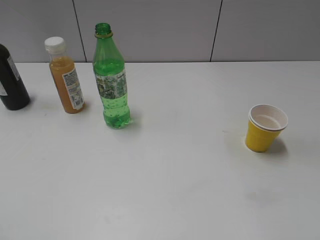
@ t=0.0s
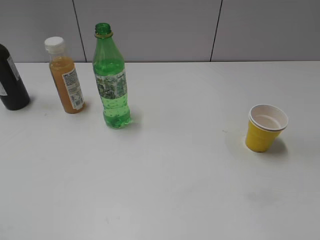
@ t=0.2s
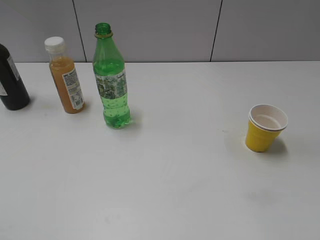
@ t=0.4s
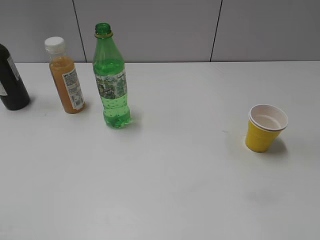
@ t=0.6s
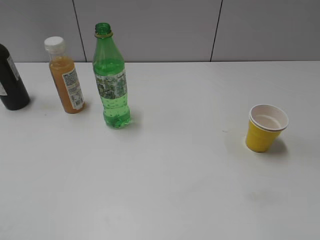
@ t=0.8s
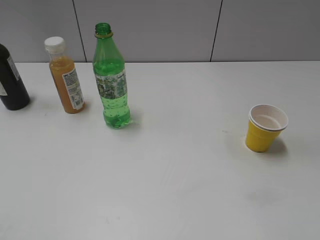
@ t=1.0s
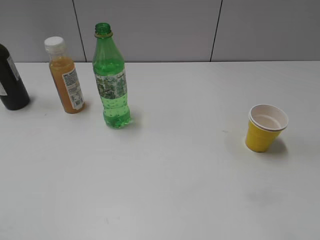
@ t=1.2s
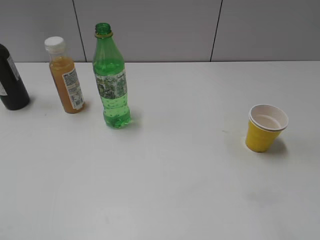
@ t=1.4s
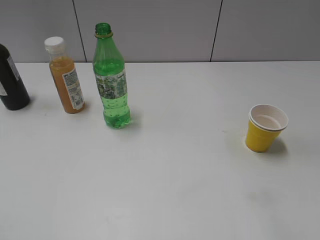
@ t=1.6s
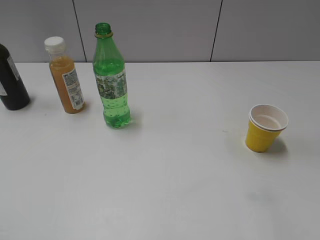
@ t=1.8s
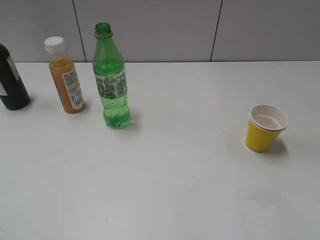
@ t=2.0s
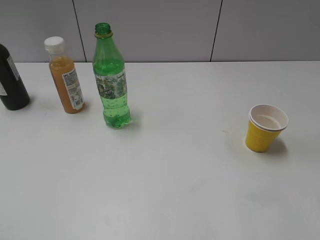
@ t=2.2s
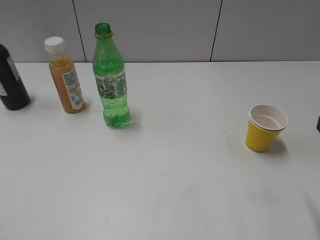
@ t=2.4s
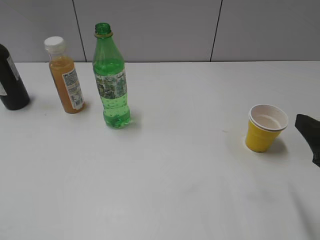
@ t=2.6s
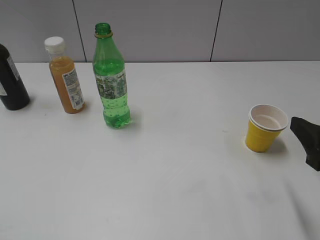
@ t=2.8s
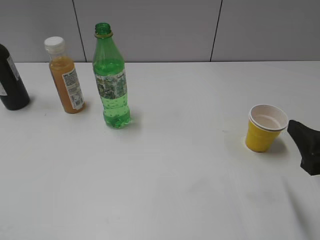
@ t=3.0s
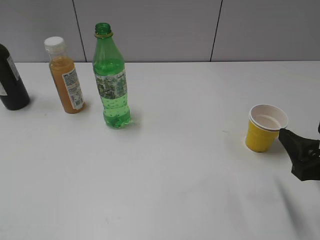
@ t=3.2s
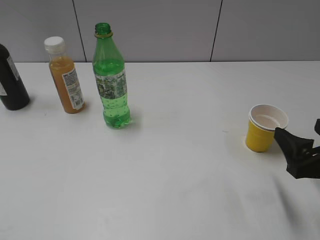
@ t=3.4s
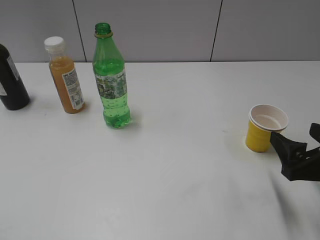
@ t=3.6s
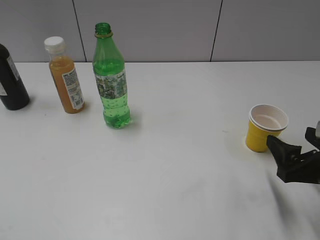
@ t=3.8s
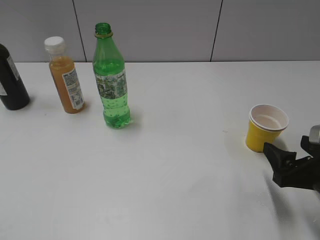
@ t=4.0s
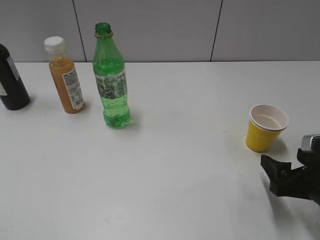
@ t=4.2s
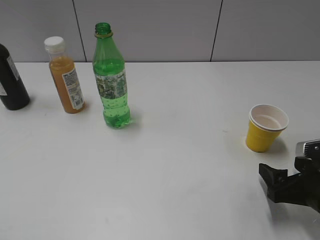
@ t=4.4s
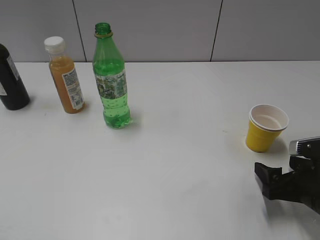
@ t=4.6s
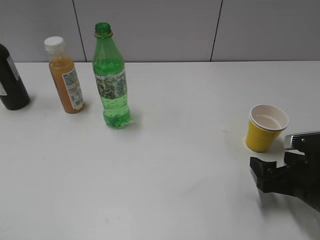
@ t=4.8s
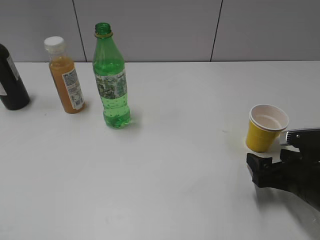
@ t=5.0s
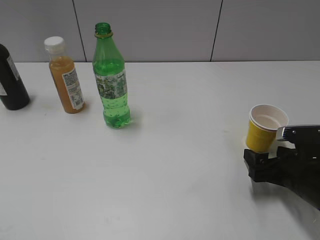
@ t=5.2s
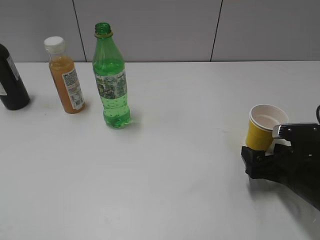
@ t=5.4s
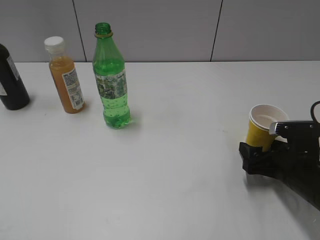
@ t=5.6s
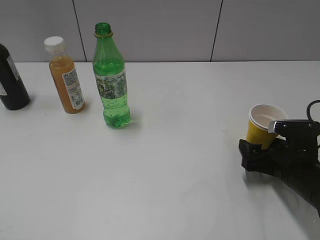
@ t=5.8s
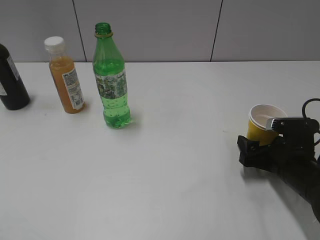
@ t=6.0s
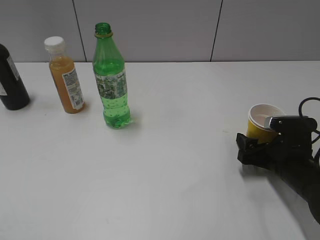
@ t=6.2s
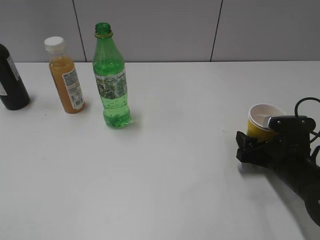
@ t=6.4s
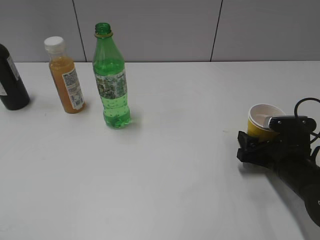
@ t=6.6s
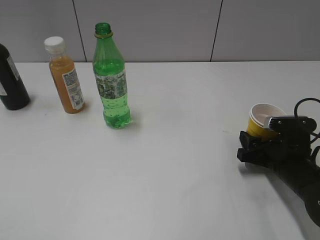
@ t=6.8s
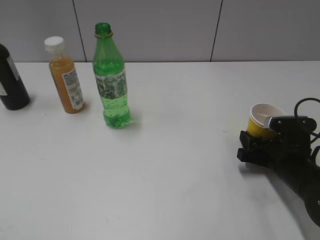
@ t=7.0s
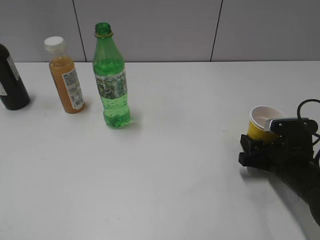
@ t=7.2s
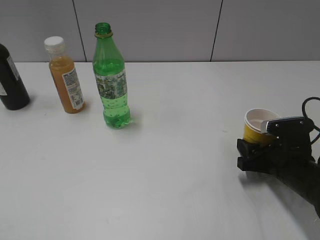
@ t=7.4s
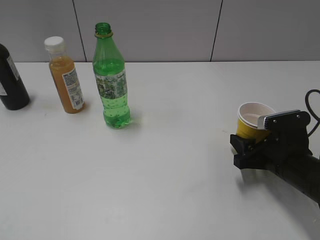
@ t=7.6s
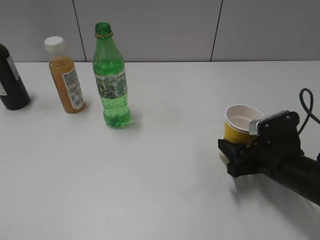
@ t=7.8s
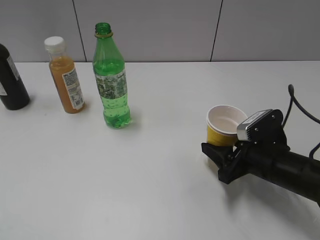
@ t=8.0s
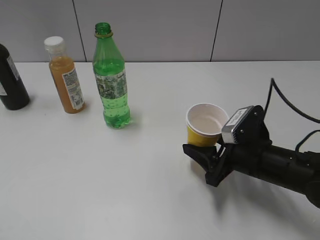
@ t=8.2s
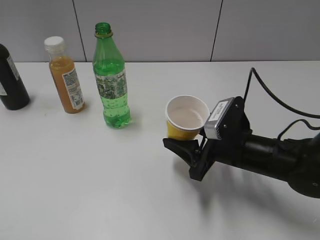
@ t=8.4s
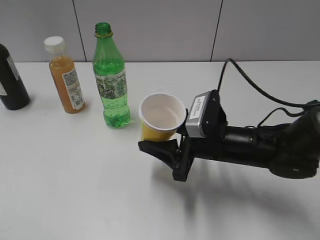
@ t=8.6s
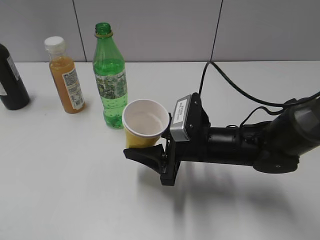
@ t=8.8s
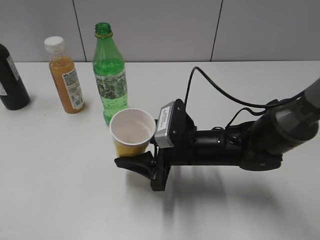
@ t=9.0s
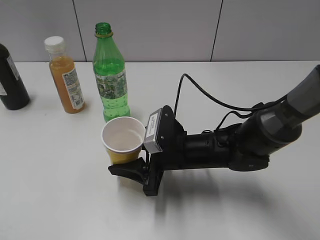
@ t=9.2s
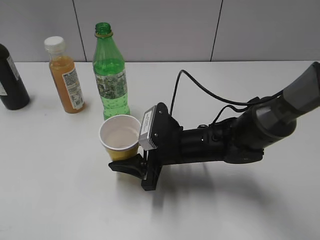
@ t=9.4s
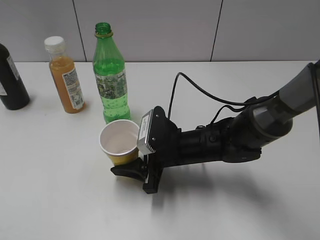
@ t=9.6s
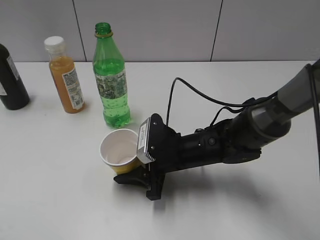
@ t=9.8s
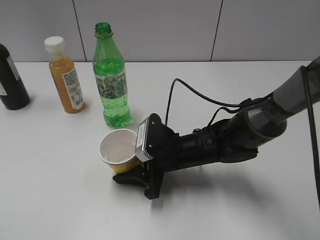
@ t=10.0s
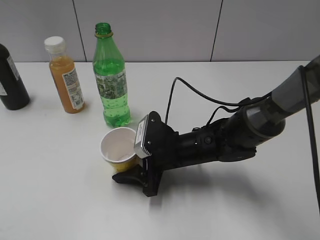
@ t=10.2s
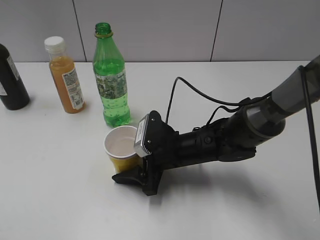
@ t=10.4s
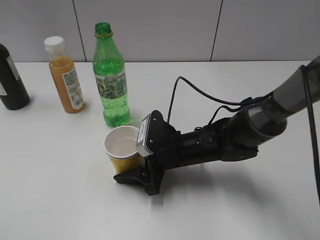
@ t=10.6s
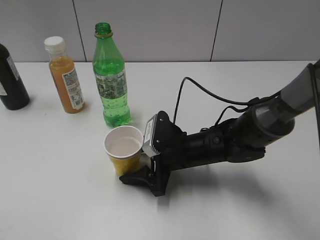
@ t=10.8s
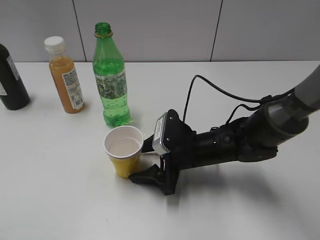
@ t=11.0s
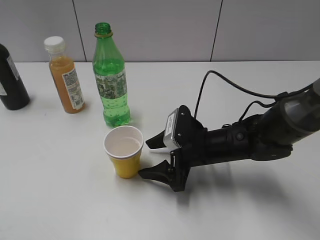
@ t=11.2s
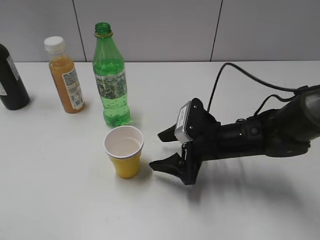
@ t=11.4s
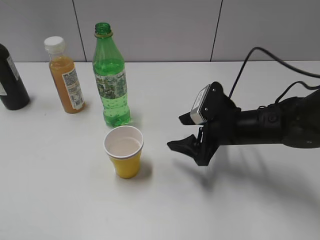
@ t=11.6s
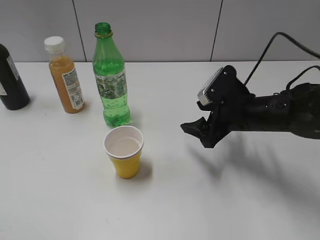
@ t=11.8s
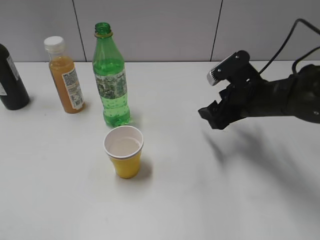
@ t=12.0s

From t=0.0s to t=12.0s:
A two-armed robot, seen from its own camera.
Step, from t=1.0s to t=6.8s: Grasp the yellow paper cup with right gripper.
Step, from t=7.2s to t=11.0s: Place the yellow paper cup on the table with right gripper.
From t=1.6s to t=3.0s: The right gripper travels downward and forward by approximately 15 cm.
From t=3.0s to t=4.4s: The right gripper shifts roughly 10 cm downward.
From t=4.4s to t=6.0s: The right gripper shifts approximately 5 cm forward.
From t=6.0s to t=7.6s: The right gripper closes its fingers.
From t=7.6s to t=9.0s: The right gripper shifts about 15 cm to the left.
From t=9.0s to t=10.4s: The right gripper opens.
From t=10.4s to t=12.0s: The right gripper shifts some 15 cm to the right and upward.

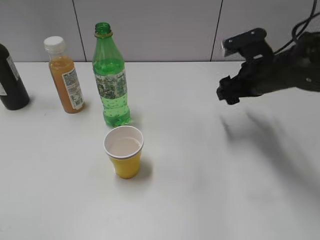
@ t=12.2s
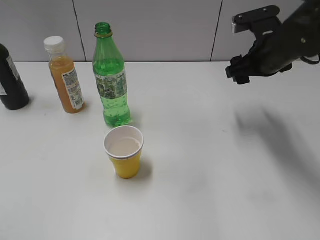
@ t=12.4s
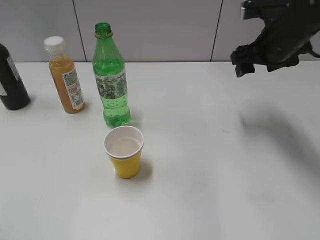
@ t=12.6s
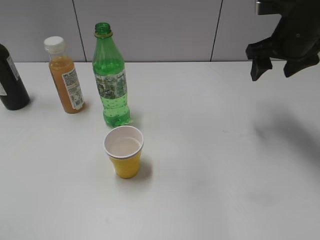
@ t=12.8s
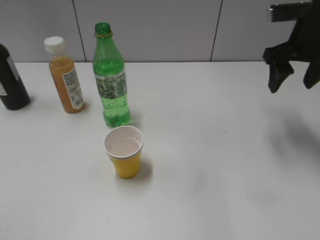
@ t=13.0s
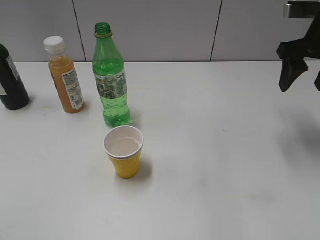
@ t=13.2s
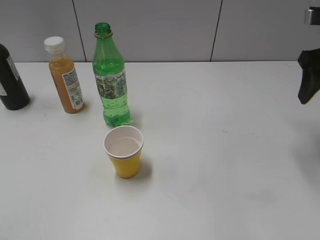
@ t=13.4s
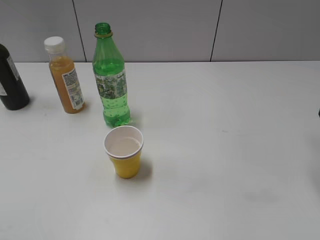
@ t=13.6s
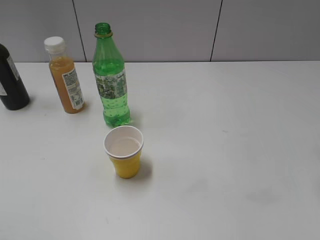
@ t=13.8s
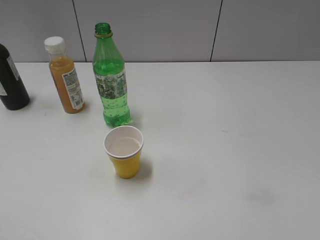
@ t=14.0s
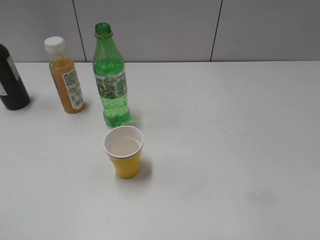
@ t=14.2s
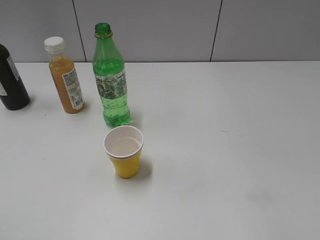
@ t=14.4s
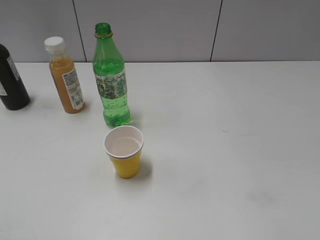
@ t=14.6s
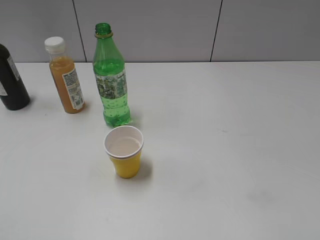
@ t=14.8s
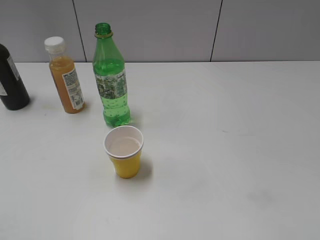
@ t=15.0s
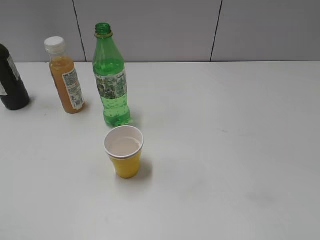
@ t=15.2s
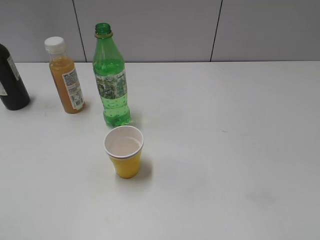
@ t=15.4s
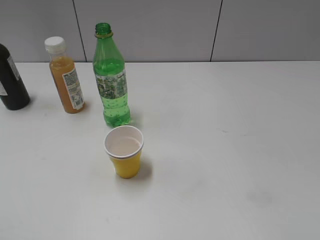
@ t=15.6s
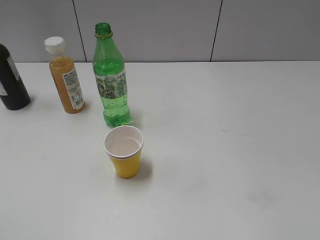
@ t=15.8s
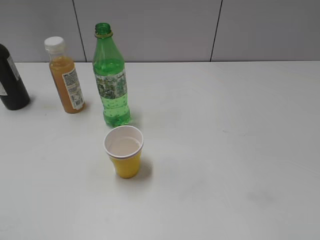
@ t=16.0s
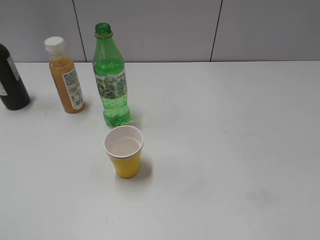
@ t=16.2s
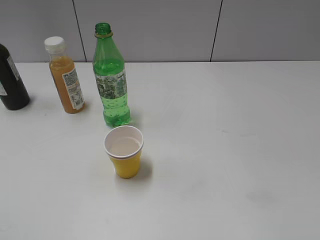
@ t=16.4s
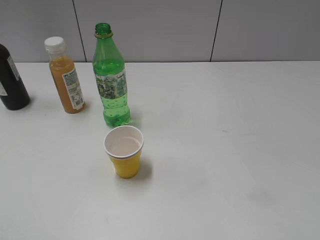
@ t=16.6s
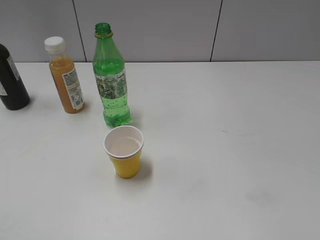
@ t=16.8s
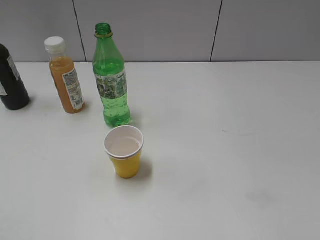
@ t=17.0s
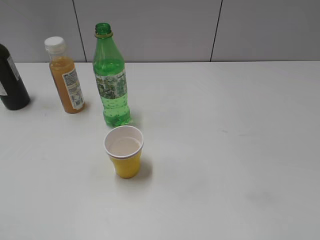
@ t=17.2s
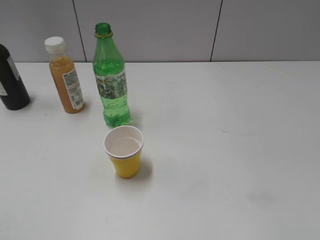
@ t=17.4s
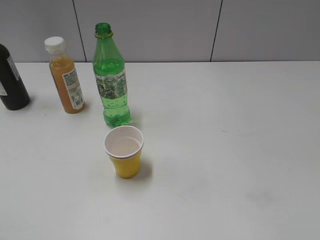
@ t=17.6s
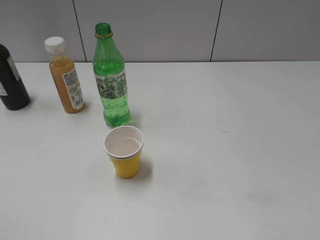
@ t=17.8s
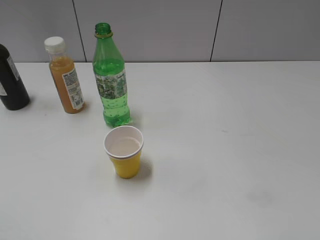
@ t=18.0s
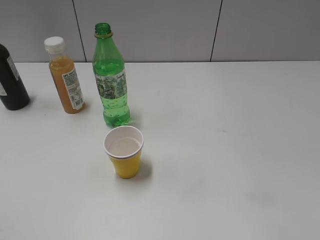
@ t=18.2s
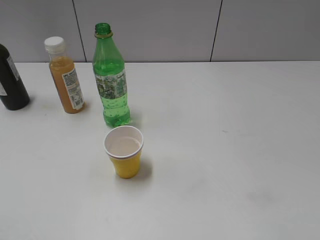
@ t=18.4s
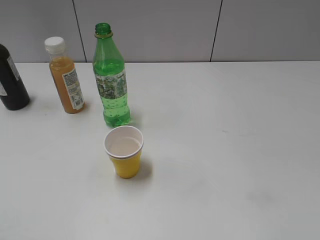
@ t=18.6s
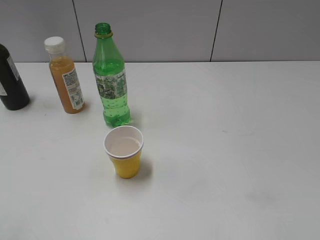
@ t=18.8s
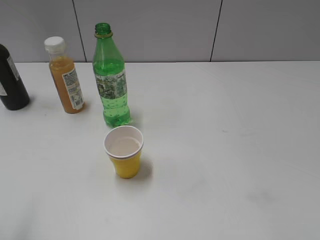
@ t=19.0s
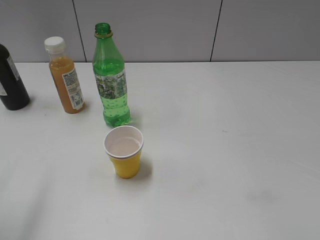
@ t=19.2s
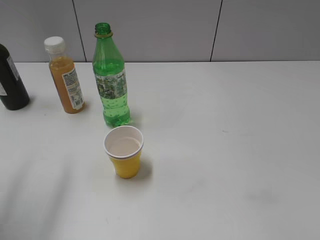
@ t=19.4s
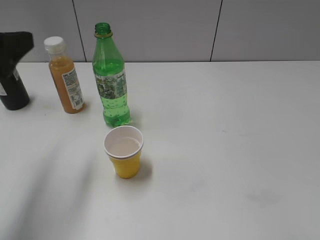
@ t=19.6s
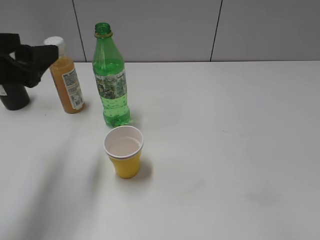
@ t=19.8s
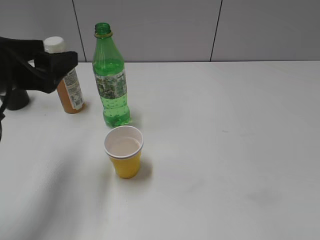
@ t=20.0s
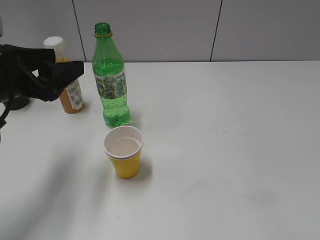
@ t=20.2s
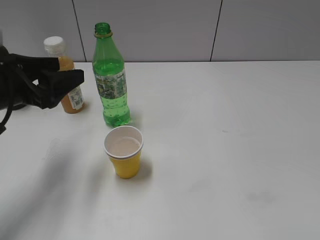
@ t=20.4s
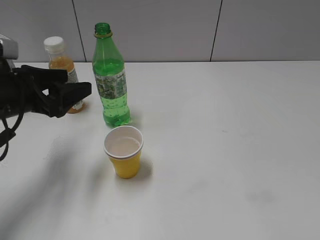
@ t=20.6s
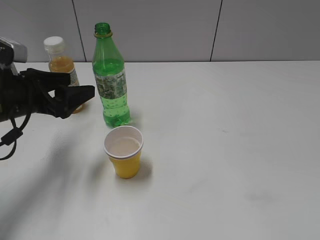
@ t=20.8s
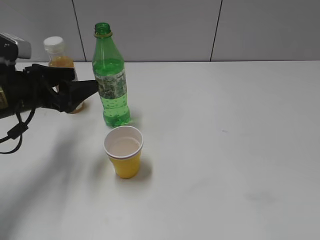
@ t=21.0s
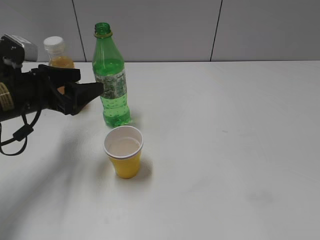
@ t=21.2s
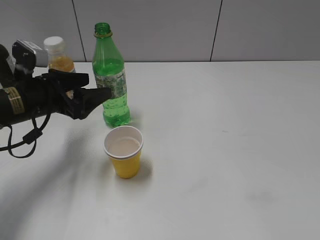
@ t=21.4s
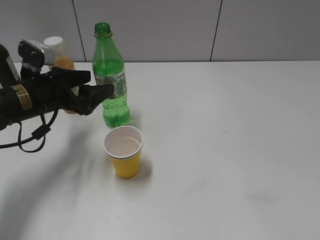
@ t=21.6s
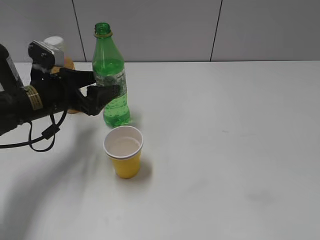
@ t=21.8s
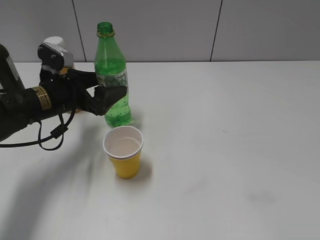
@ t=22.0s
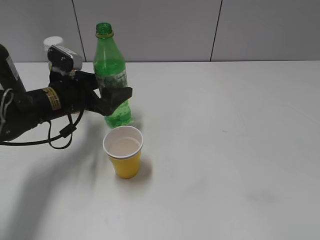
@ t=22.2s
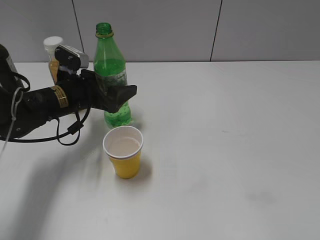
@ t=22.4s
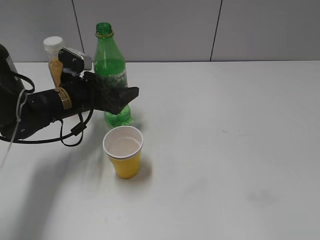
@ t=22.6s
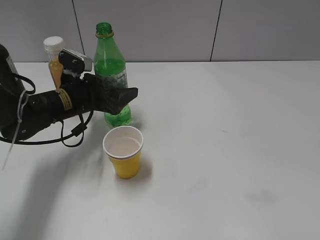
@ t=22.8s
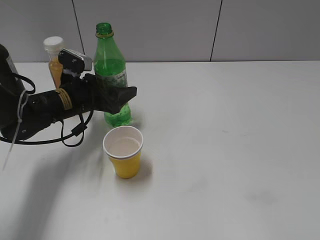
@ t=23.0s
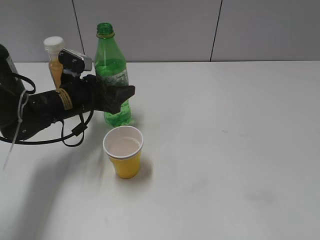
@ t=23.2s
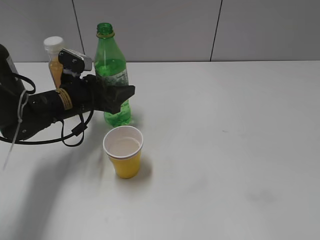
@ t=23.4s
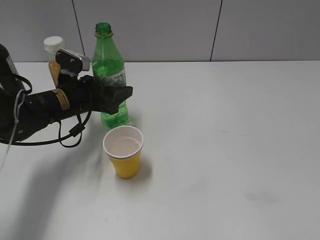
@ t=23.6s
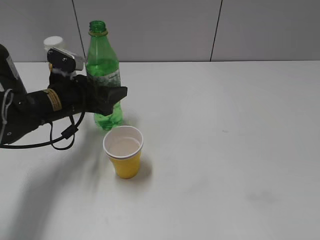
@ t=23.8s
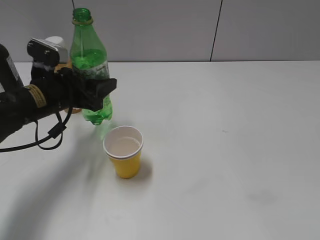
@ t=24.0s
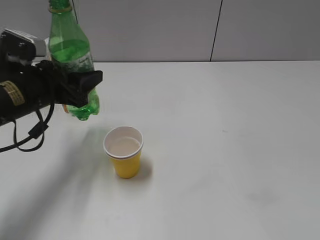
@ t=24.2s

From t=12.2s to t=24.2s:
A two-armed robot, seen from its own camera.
Step, from t=12.2s to t=23.2s: Grasp the bottle with sprite with left gripper.
From t=12.2s to t=13.8s: The right gripper is displaced upward, backward and to the right by roughly 20 cm.
From t=18.2s to t=19.8s: The left gripper shifts about 25 cm forward.
From t=19.8s to t=21.2s: The left gripper goes about 15 cm downward and forward.
From t=21.2s to t=22.6s: The left gripper travels to the right, forward and downward by about 10 cm.
From t=22.6s to t=24.2s: The left gripper moves backward and upward, approximately 10 cm, and closes.
